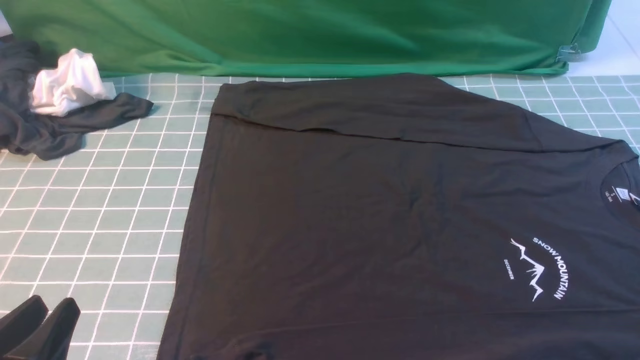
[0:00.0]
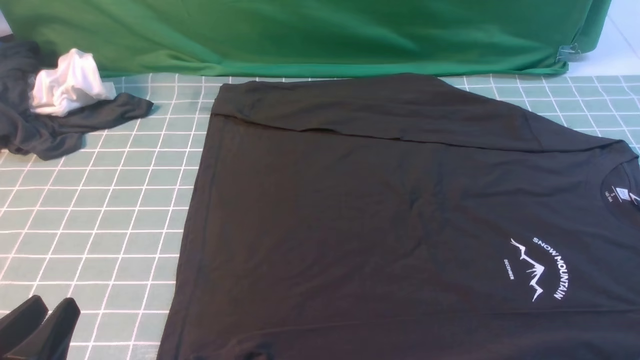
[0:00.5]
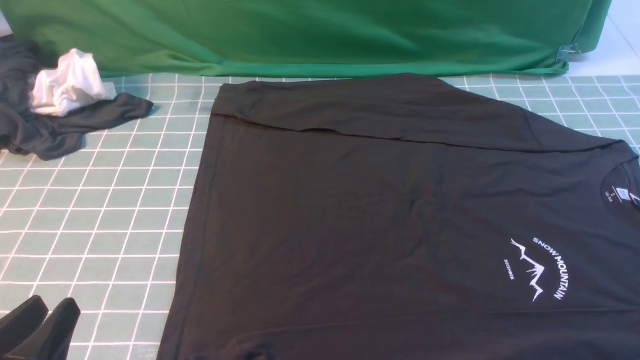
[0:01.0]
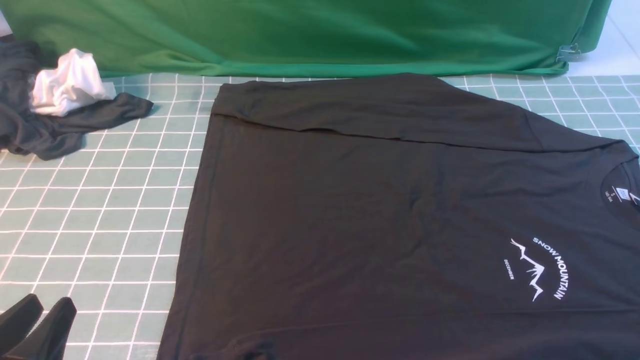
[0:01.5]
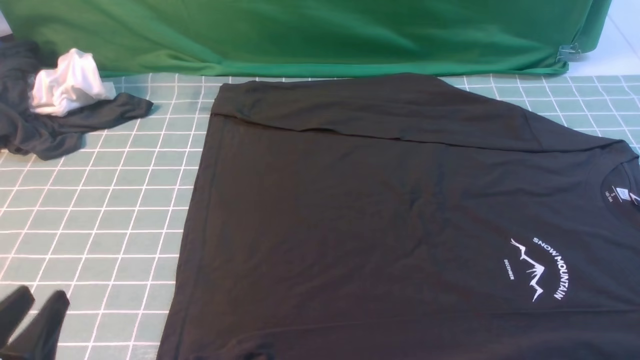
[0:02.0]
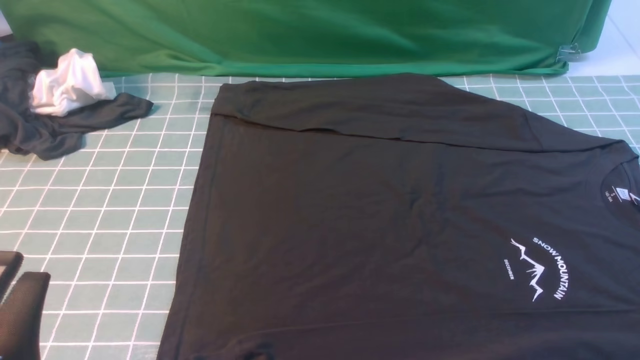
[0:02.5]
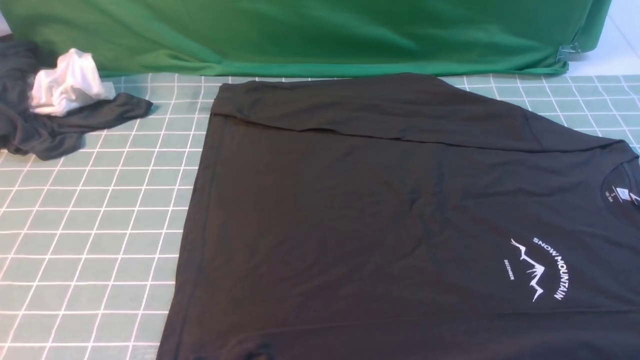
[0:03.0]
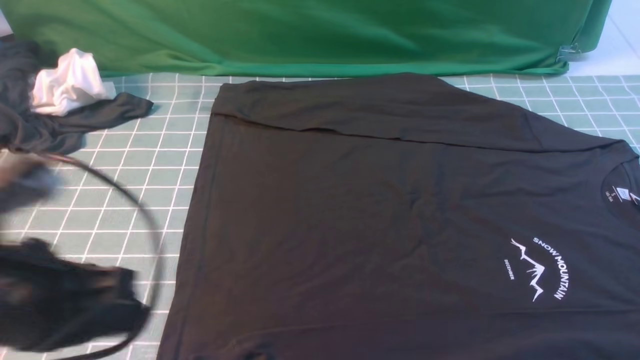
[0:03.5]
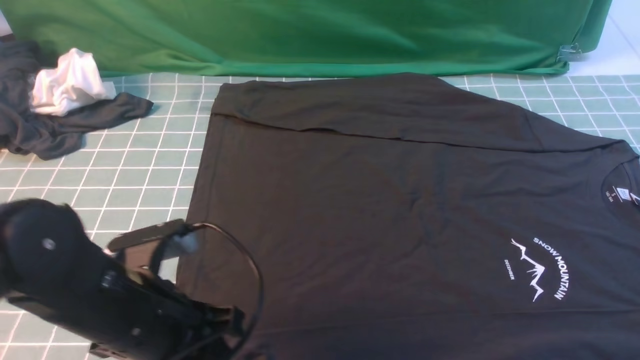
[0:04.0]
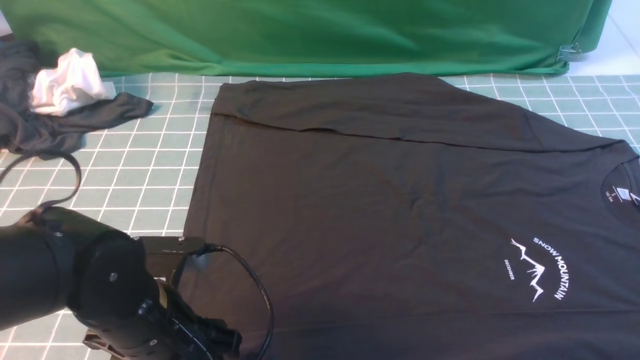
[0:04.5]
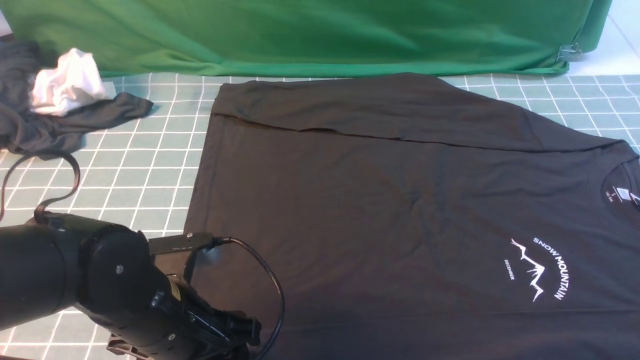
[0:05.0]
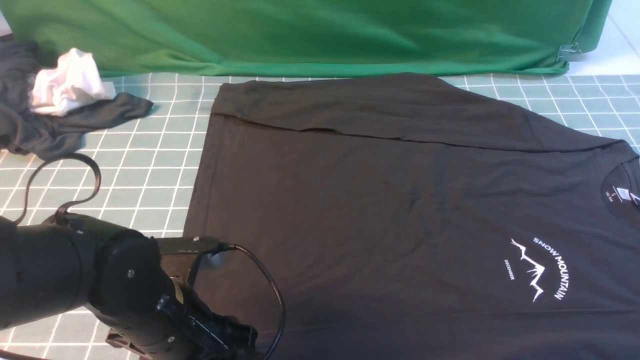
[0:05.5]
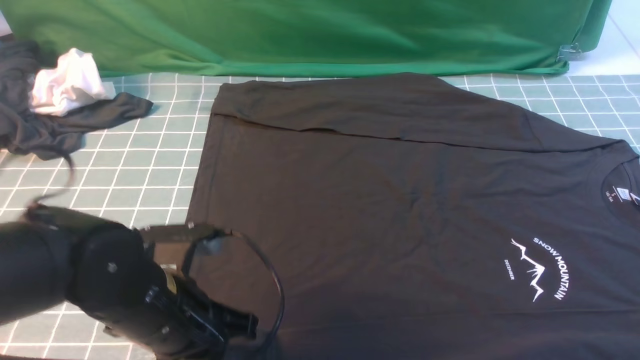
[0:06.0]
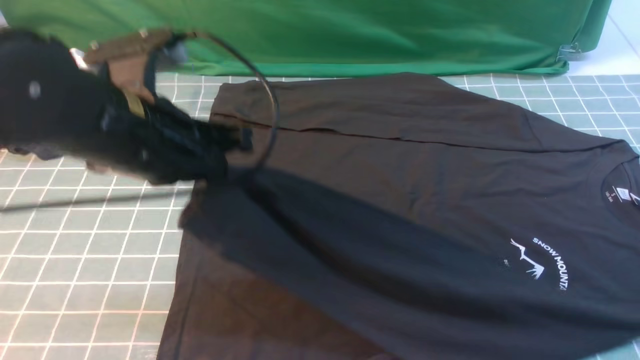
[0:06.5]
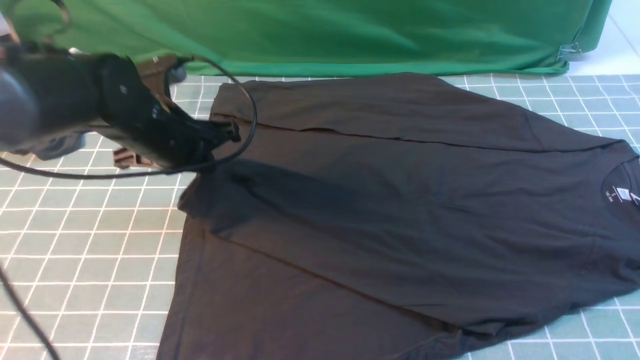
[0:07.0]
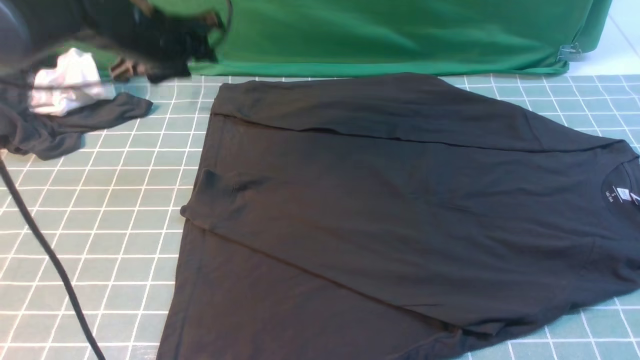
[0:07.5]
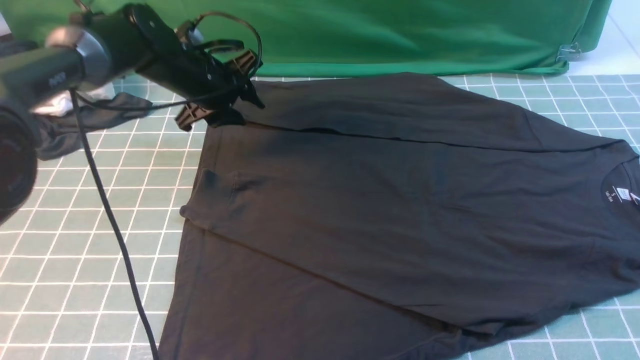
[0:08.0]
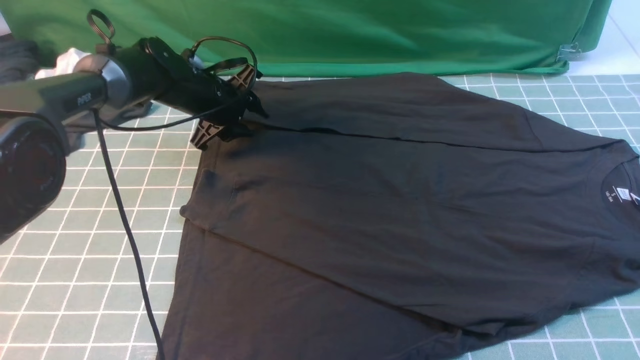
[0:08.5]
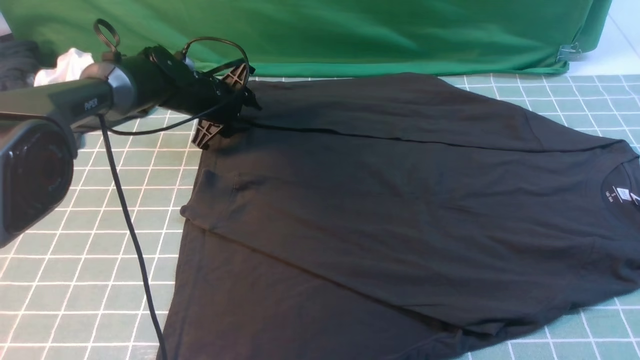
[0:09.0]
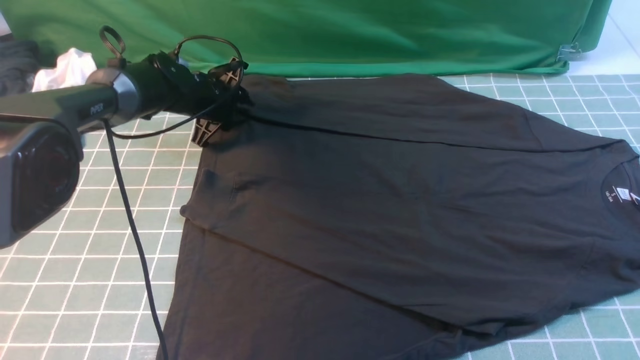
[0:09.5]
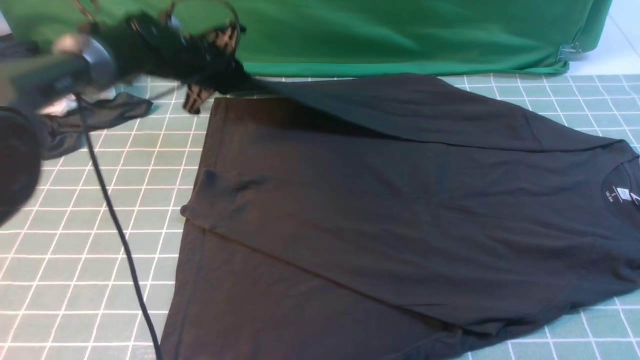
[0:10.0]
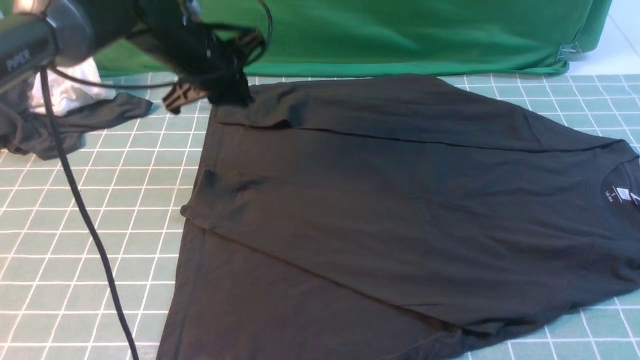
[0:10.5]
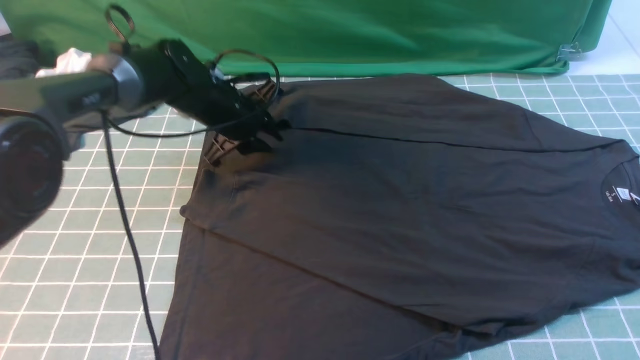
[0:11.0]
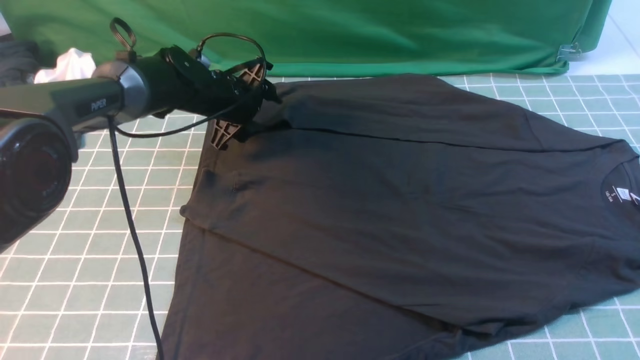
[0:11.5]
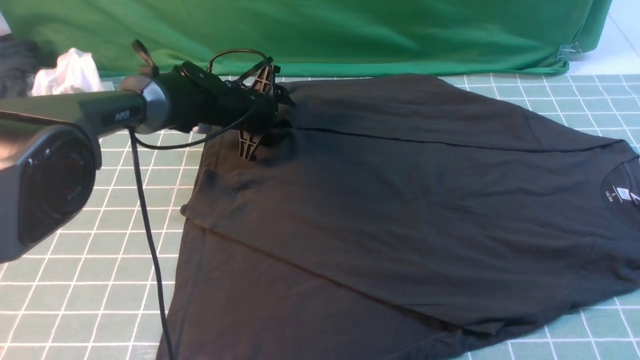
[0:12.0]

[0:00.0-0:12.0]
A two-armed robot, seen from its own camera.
Step, 0:00.0 to 0:05.5: use the left arm to clamp the cuff closest to it.
Step, 0:06.0 to 0:07.0: use the left arm to drag and place the cuff at the centered position on the left edge of the fabric.
0:00.0 to 0:02.0: The grippers make only small movements.
0:02.0 to 0:04.0: The left gripper is displaced forward and to the right by roughly 15 cm, and closes, then reopens.
0:04.0 to 0:06.0: The left gripper closes its fingers.
0:06.0 to 0:08.0: The left gripper travels forward by about 30 cm, and opens its fingers.
0:08.0 to 0:10.0: The left gripper closes up.
0:10.0 to 0:12.0: The left gripper shifts roughly 5 cm downward, and opens its fingers.

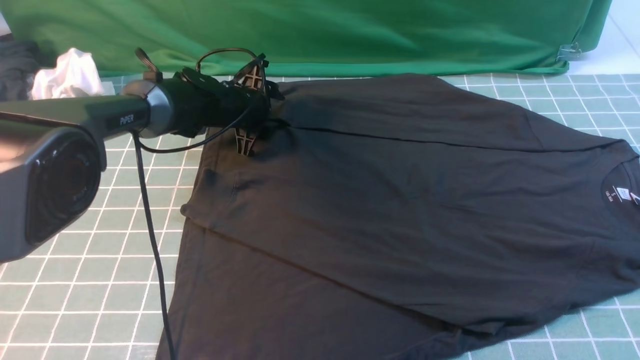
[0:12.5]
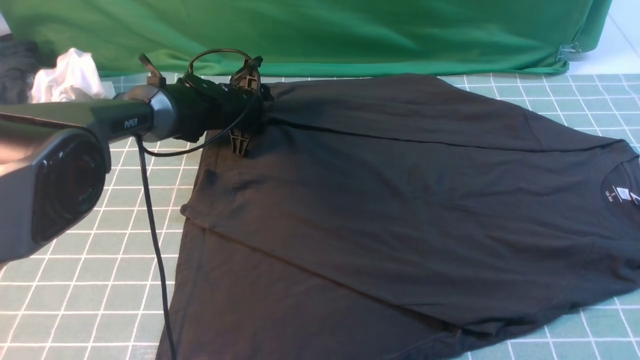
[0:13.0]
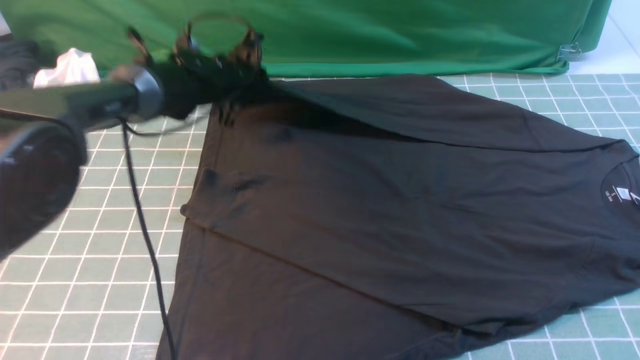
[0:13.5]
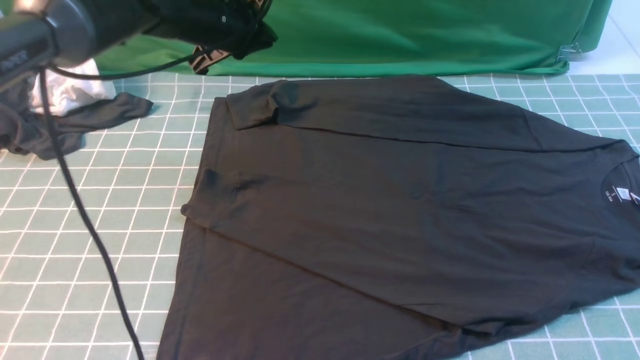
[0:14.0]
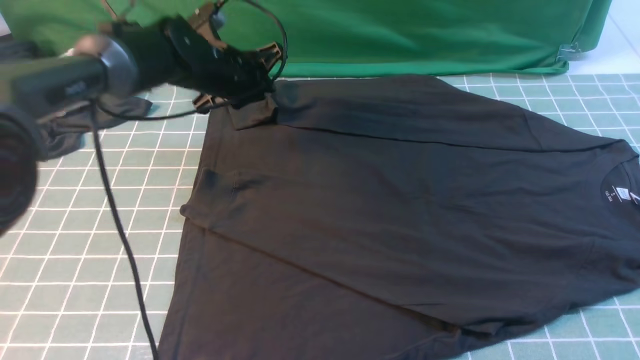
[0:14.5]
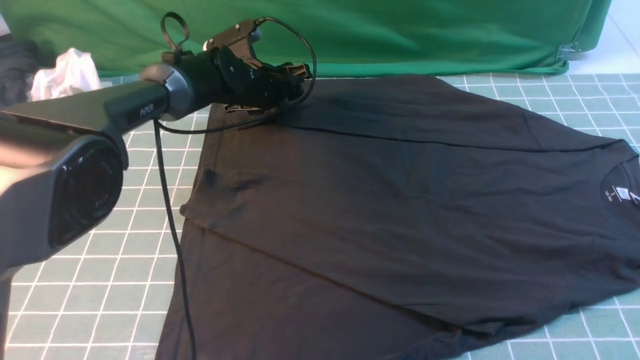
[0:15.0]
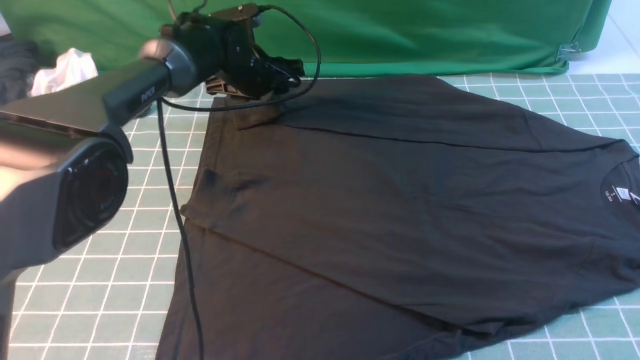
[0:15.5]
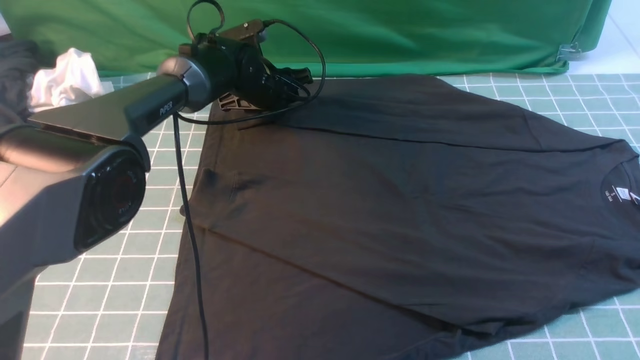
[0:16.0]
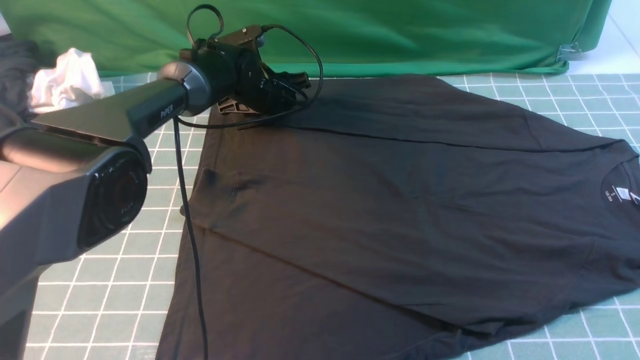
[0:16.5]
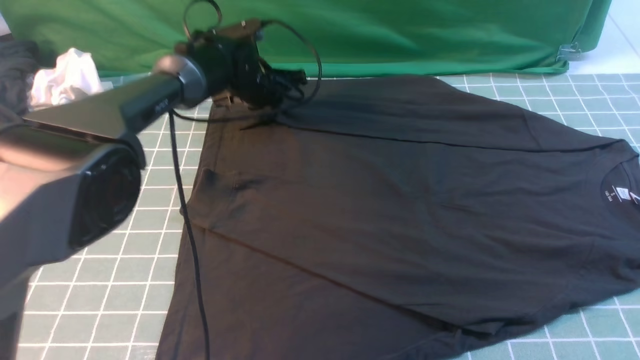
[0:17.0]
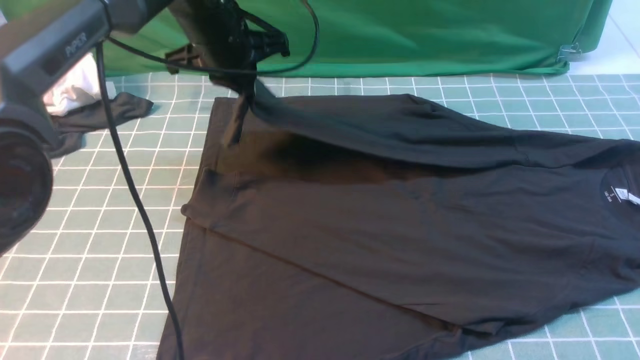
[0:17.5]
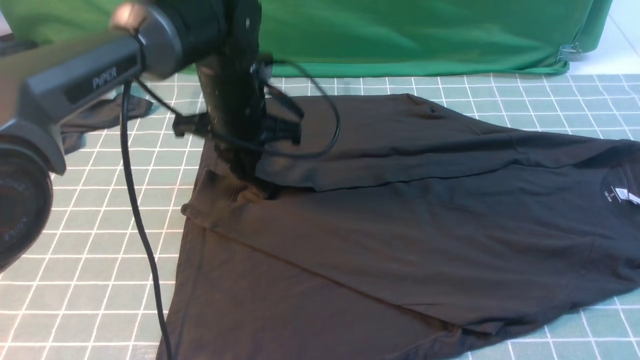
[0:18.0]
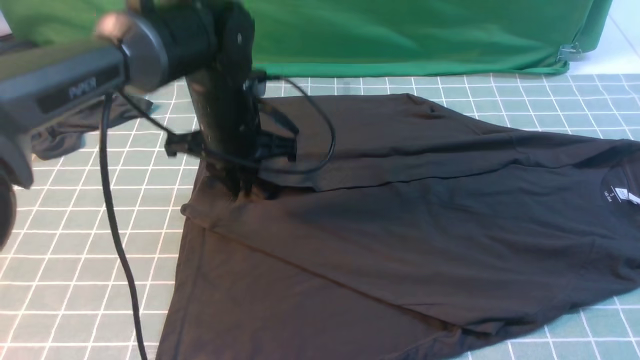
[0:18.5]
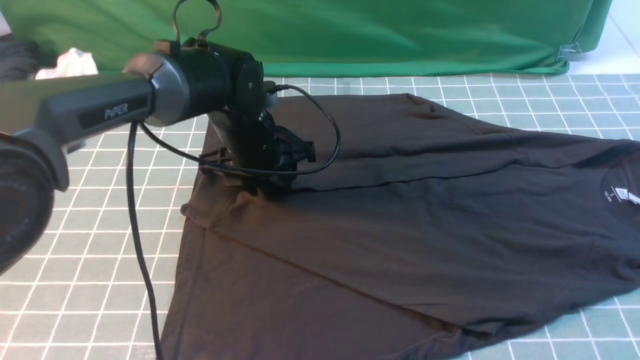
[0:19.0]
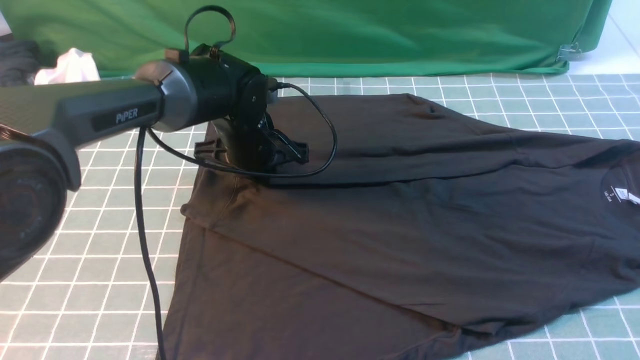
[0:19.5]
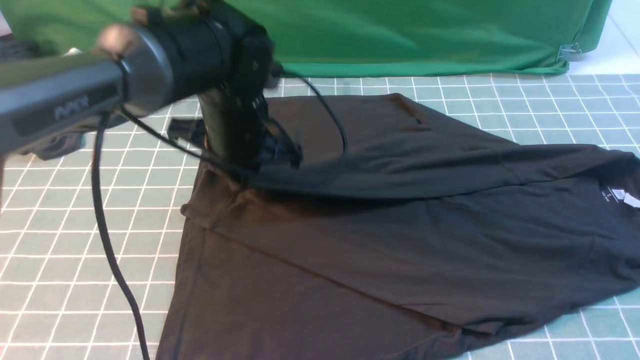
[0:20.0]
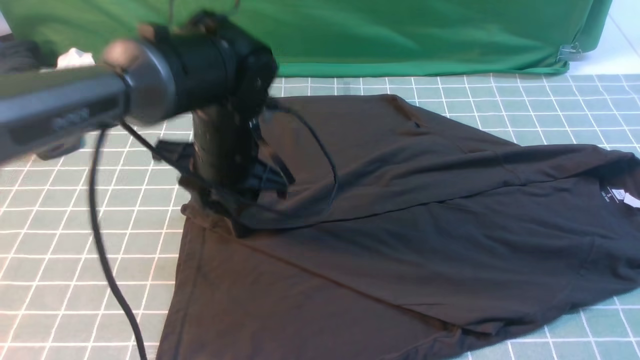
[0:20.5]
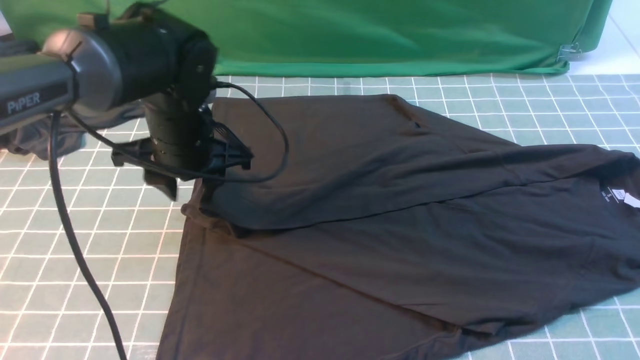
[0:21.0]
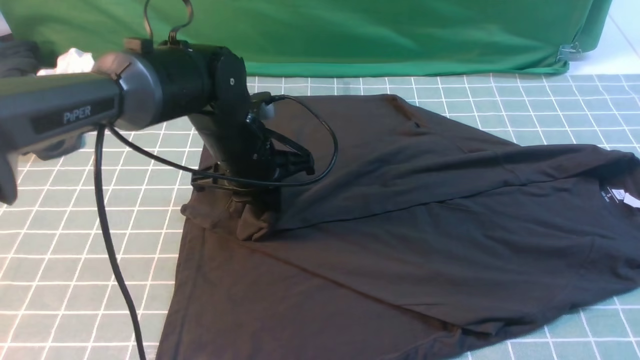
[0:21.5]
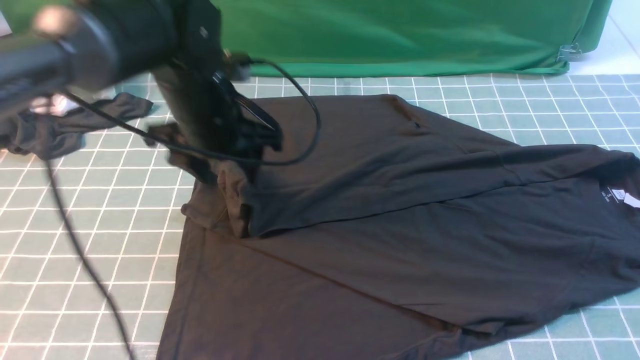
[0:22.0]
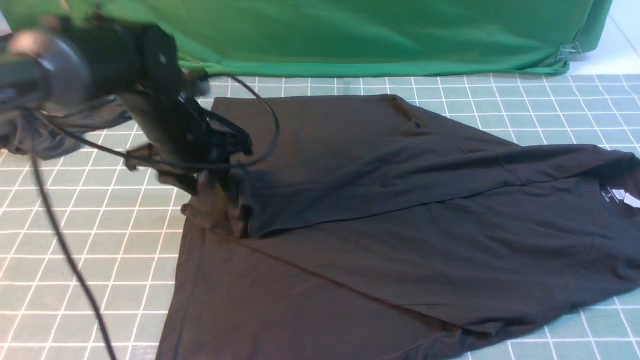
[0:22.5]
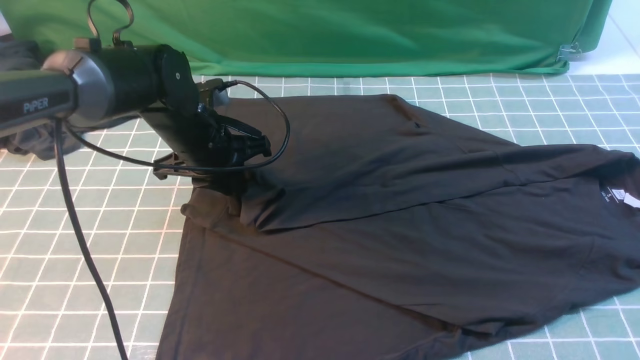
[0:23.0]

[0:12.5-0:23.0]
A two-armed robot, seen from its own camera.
Step, 0:12.5 to 0:17.0: use the left arm to clamp the cuff farthest from it.
0:12.5 to 0:14.5: The right gripper closes up. The left gripper heads upward, covering some 5 cm, and closes, then opens again.
0:14.5 to 0:16.5: The left gripper is displaced downward and forward by approximately 10 cm.
0:16.5 to 0:19.0: The left gripper heads backward, covering about 15 cm, and closes and opens again.
0:19.0 to 0:21.0: The left gripper moves approximately 5 cm, and closes, then reopens.
0:21.0 to 0:23.0: The left gripper shifts by approximately 5 cm, and opens and closes again.
